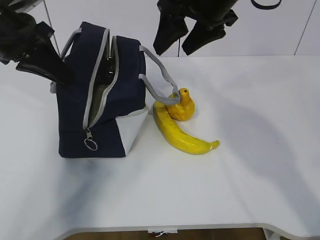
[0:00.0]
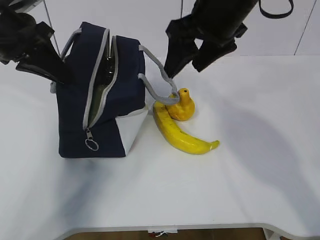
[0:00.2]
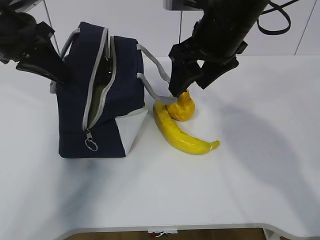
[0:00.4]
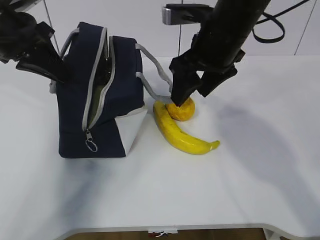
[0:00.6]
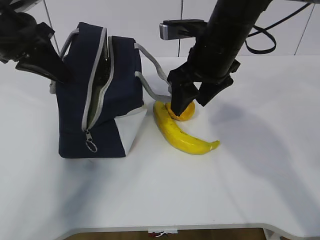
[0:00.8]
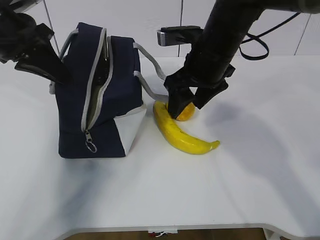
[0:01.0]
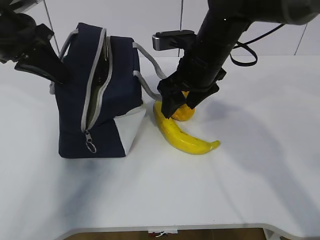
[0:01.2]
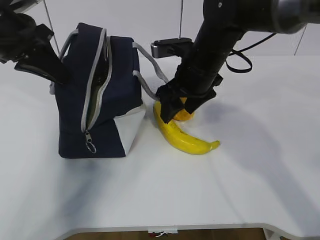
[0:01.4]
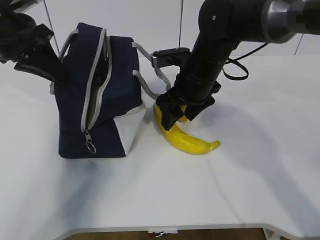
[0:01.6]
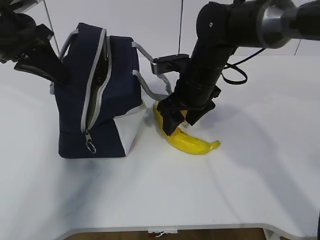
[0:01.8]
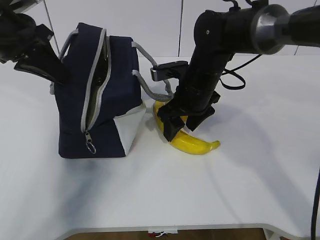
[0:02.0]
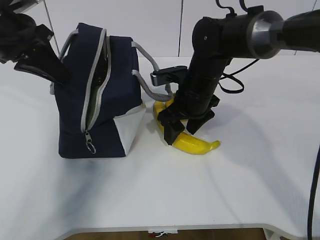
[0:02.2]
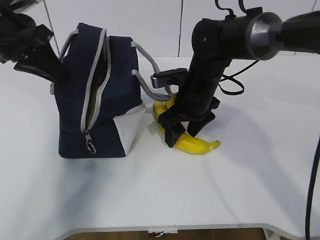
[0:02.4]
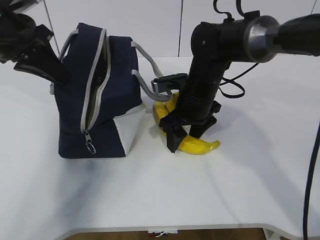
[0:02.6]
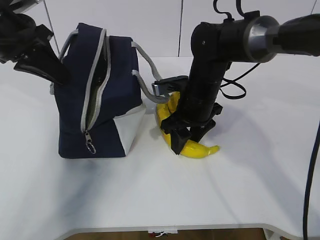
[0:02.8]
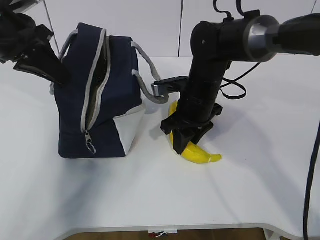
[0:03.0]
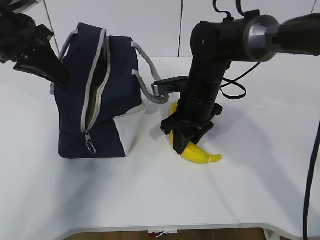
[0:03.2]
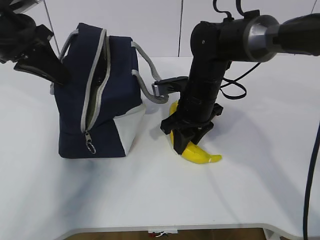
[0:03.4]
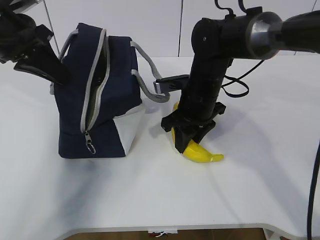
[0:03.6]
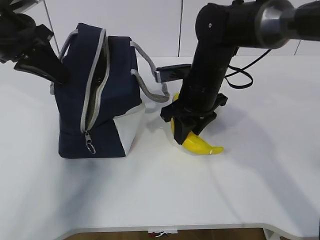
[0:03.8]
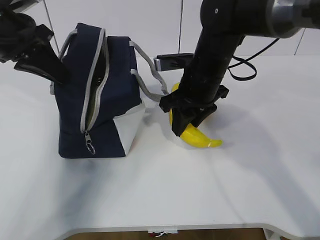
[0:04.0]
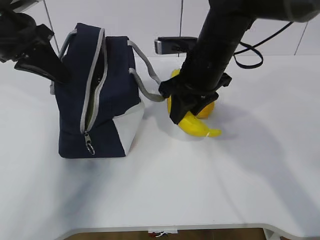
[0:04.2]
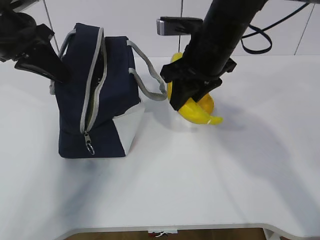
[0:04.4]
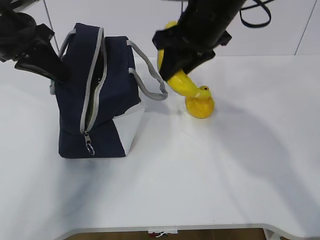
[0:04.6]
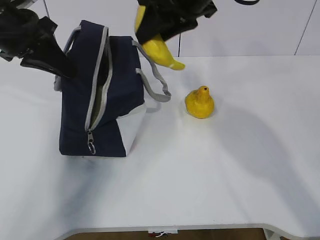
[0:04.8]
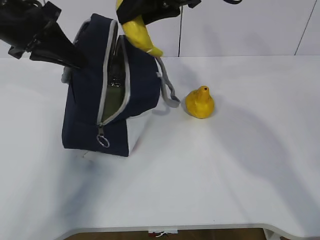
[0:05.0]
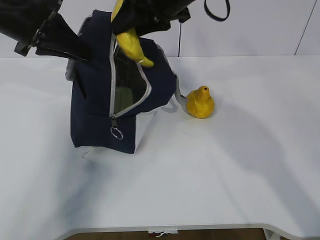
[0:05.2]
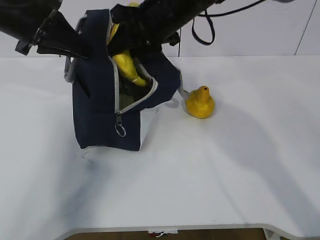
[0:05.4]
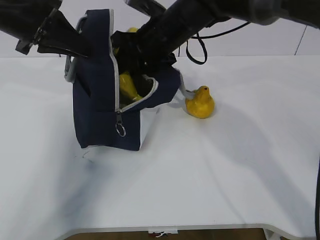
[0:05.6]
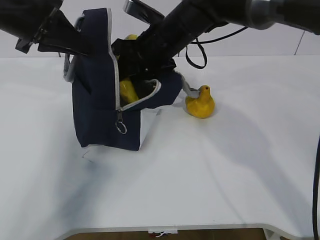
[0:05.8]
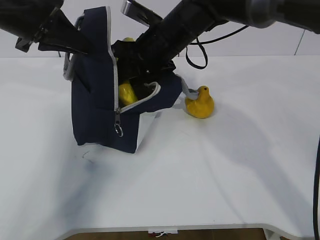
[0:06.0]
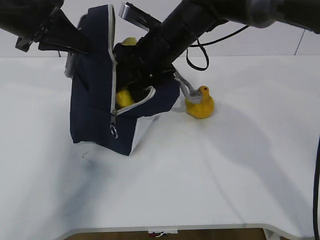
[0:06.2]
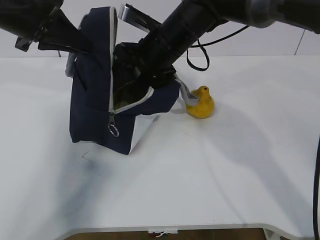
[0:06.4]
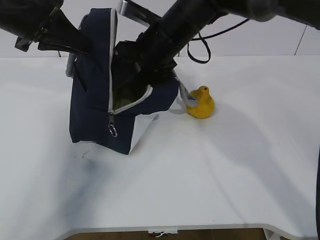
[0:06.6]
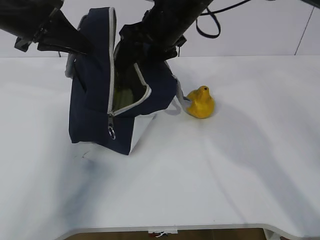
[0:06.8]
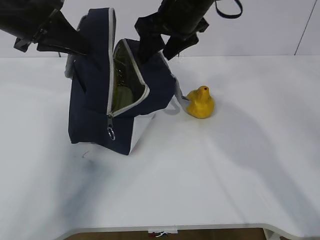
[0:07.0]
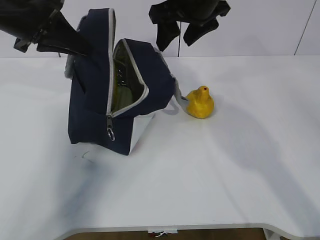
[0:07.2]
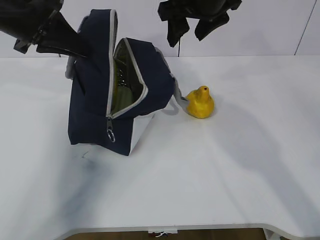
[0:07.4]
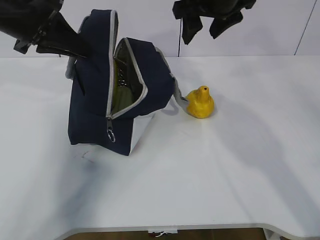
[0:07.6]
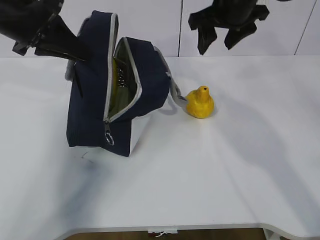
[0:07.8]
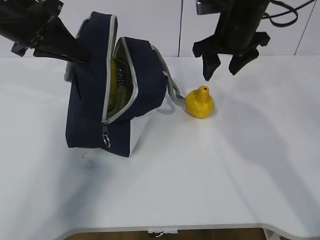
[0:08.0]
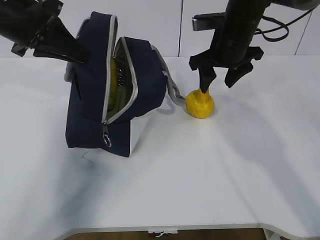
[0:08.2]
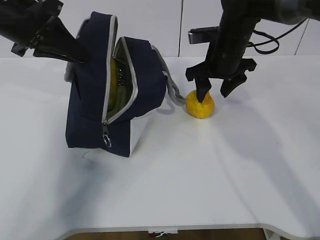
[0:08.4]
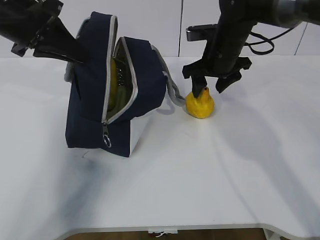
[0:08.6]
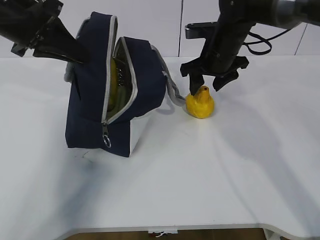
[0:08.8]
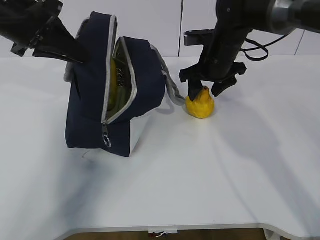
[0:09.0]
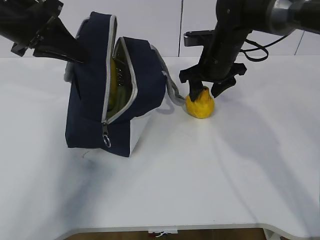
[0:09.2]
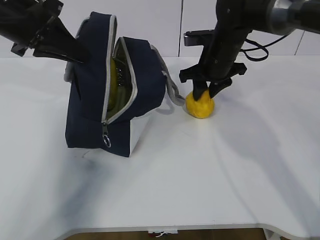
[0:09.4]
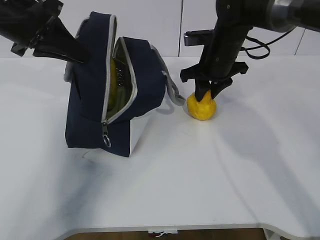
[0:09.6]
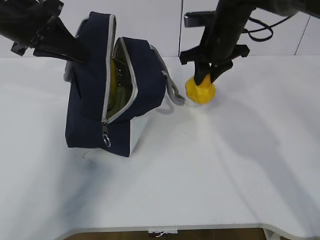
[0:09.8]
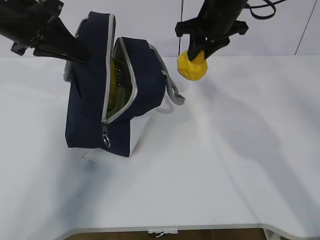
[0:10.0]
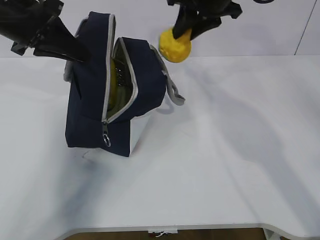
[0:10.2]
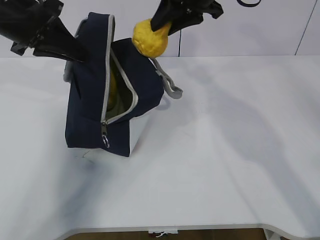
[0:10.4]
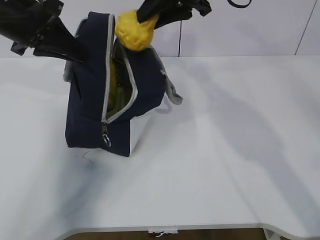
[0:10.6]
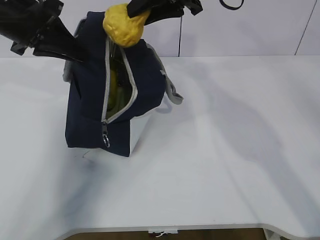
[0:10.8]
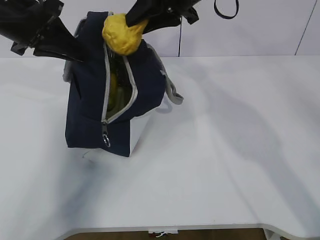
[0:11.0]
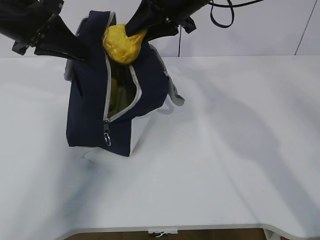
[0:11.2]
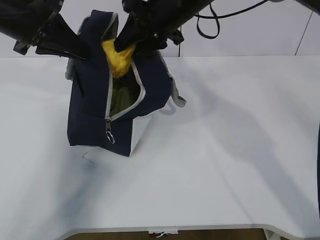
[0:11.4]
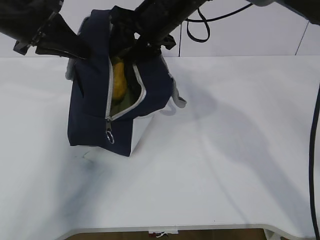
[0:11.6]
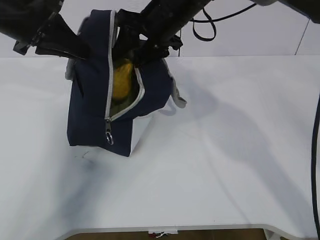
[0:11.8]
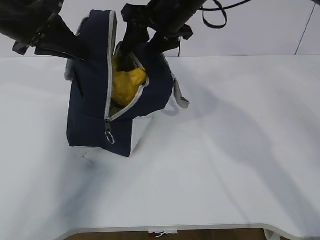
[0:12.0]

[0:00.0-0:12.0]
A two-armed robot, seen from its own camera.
Step, 0:00.0 to 0:01.2: Place it into the bag with your right hand.
Step, 0:01.4 to 0:03.8: Grab the pear with your right hand.
Step, 0:06.2 to 0:07.0: Grab the lunch bag with your right hand.
Step, 0:07.2 to 0:08.6: Move the lunch bag to the right.
0:00.0 to 0:01.6: The right gripper moves downward, roughly 15 cm.
0:01.6 to 0:03.0: The right gripper closes up.
0:03.0 to 0:04.4: The right gripper travels upward by about 10 cm.
0:04.4 to 0:06.0: The right gripper travels to the left and forward by roughly 10 cm, and goes upward and returns, about 10 cm each way.
0:06.0 to 0:07.6: The right gripper travels upward and to the right by roughly 10 cm, and opens.
0:07.6 to 0:09.0: The right gripper goes some 15 cm downward.
0:09.0 to 0:10.4: The right gripper is displaced upward by some 15 cm, and closes its fingers.
0:10.4 to 0:12.0: The right gripper travels to the left by about 5 cm, and opens up.

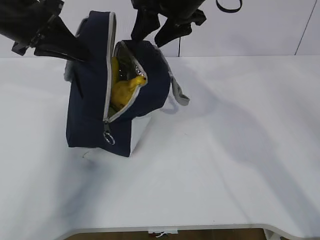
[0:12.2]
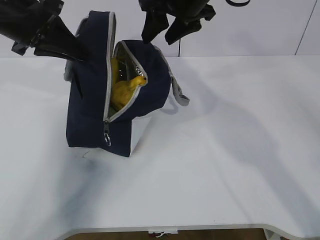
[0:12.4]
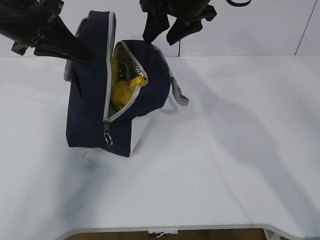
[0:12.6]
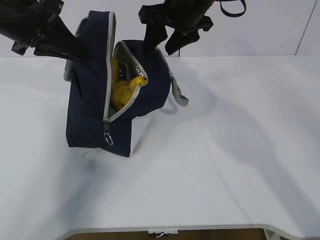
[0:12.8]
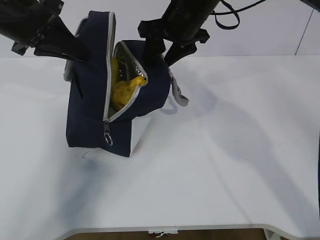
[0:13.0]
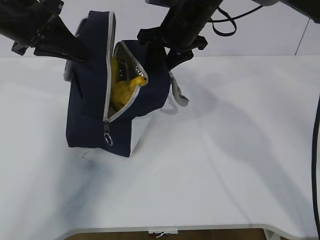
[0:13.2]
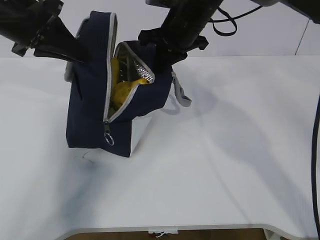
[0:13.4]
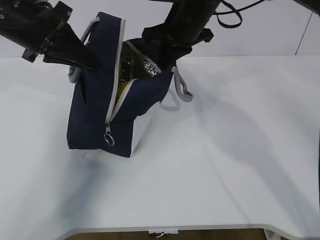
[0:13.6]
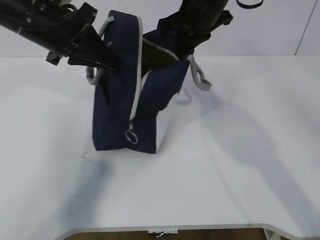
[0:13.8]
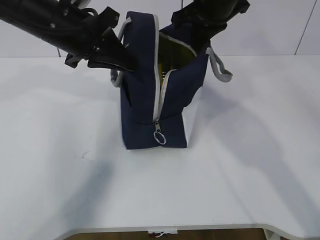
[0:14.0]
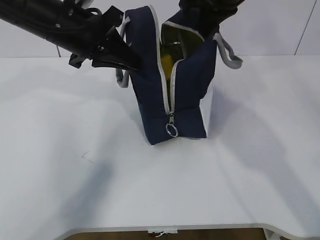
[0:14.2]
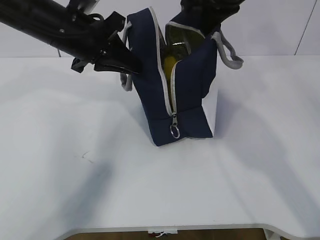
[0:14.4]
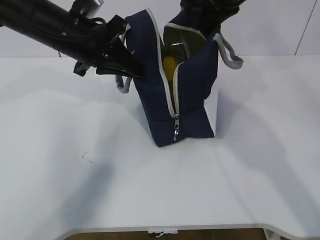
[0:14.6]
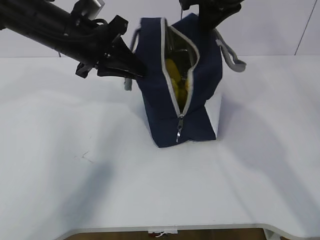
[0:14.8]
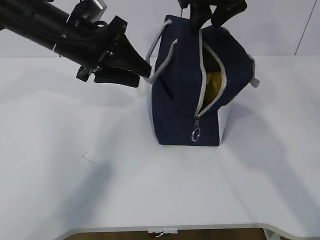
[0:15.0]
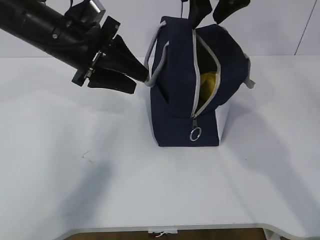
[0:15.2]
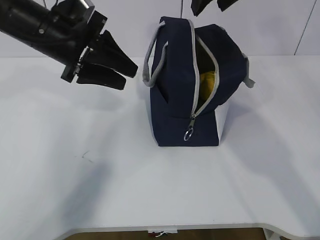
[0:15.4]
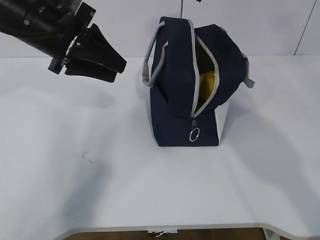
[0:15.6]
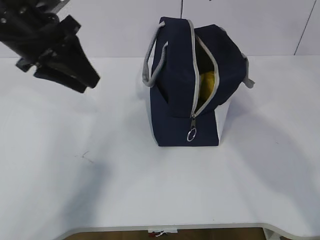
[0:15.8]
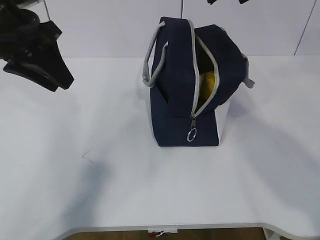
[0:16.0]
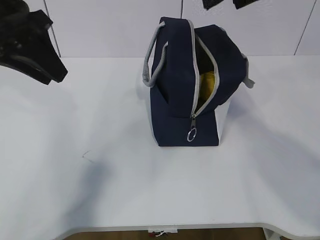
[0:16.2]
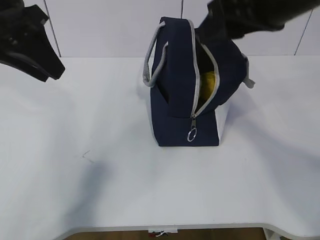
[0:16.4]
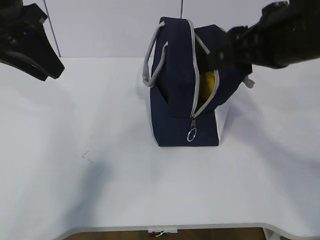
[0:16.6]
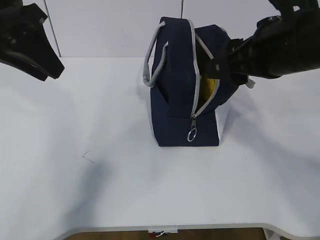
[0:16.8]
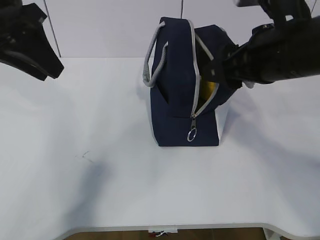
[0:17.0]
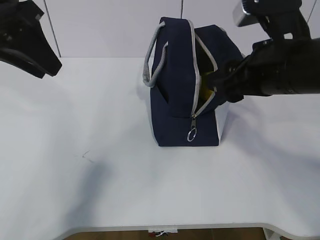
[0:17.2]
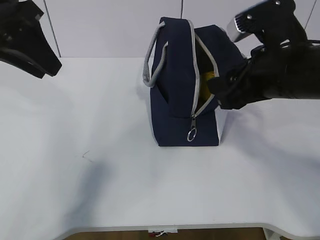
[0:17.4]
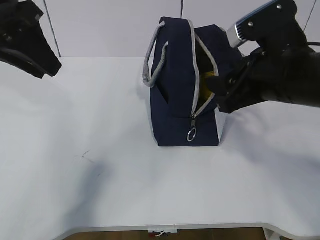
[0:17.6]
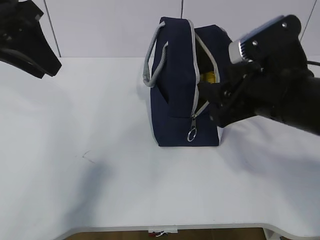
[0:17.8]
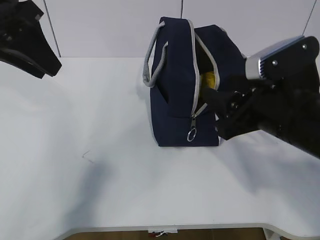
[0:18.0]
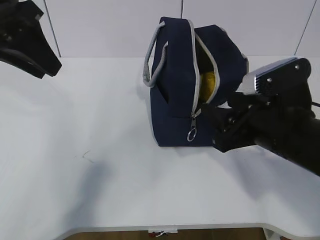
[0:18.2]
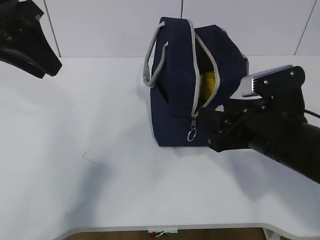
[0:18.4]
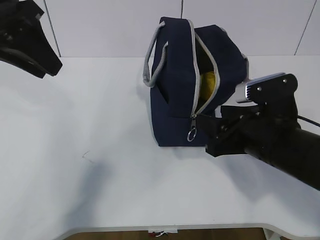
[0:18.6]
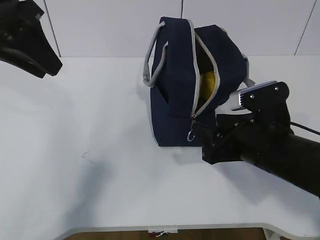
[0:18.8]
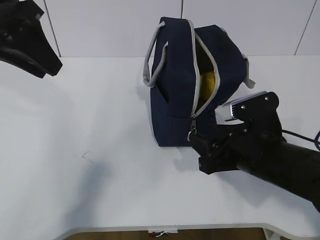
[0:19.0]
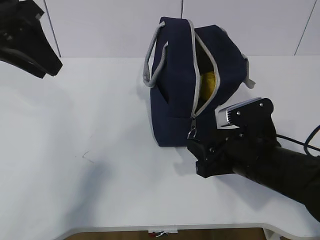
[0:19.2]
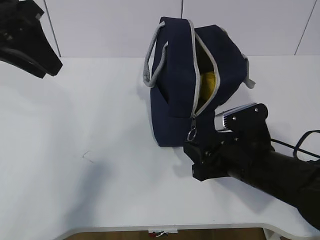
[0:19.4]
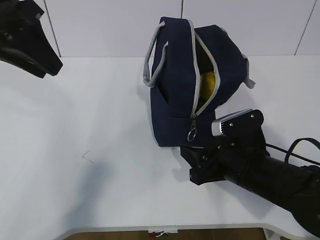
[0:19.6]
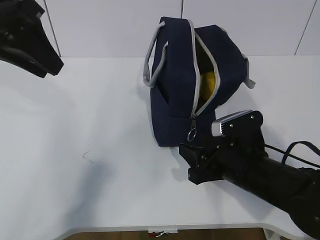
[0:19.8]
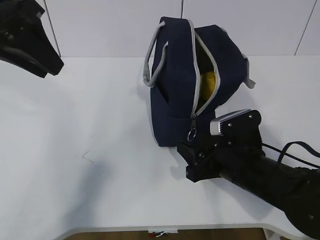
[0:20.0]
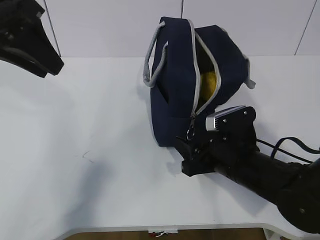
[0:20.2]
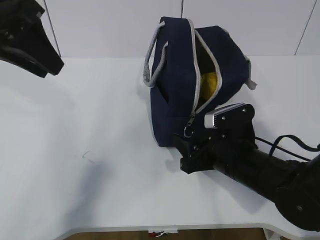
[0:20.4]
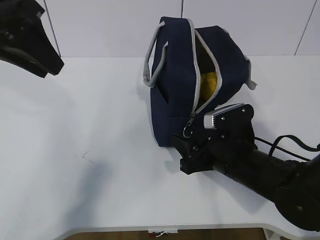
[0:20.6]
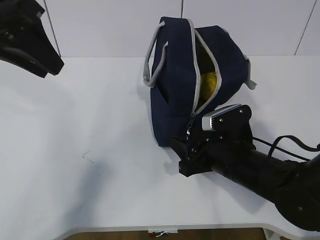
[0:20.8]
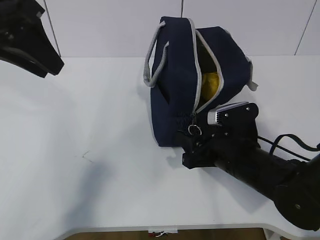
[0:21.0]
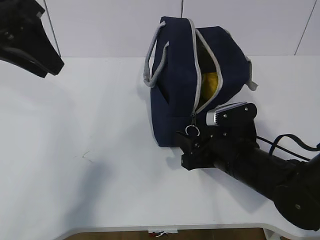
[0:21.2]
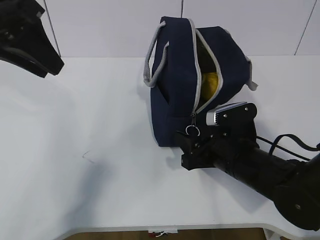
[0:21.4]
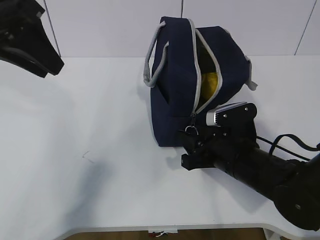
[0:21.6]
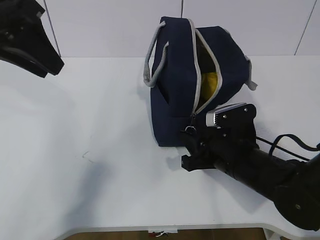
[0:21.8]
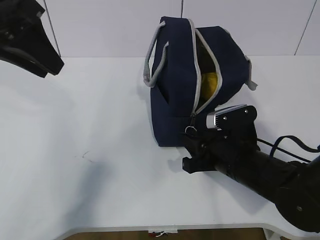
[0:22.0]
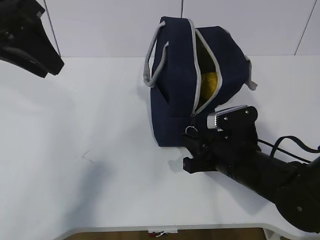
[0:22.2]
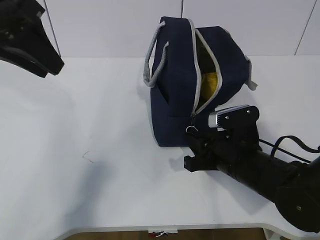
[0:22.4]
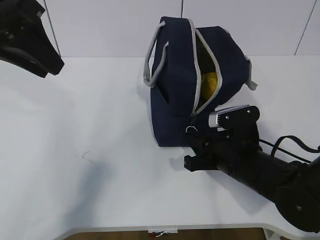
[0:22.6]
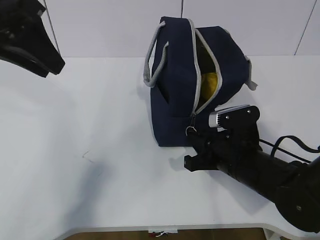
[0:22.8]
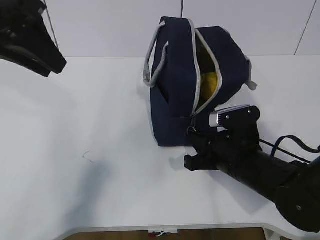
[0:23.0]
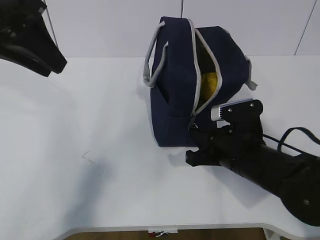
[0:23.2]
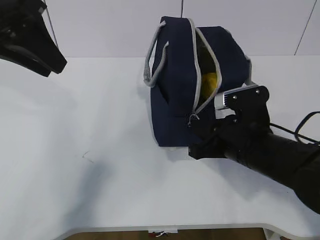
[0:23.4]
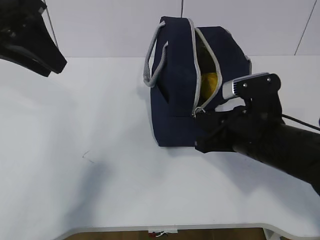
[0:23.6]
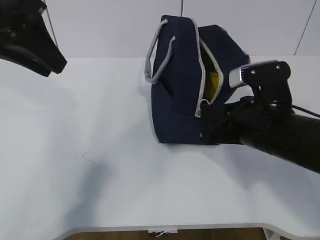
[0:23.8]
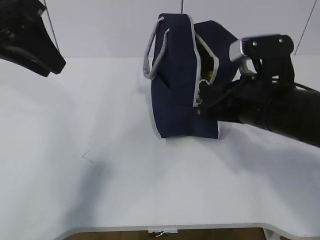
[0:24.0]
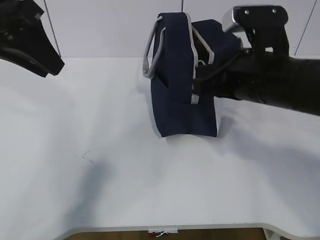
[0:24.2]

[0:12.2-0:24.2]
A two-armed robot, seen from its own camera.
Step, 0:12.2 to 0:20.8: Grab the lunch bag with your left hand.
0:12.2 to 0:13.8: The right gripper closes its fingers.
0:13.8 to 0:15.2: The right gripper goes some 5 cm upward, and opens its fingers; the left gripper opens its fingers.
0:15.2 to 0:16.6: The left gripper travels upward, to the left and backward by roughly 10 cm, while the right gripper heads backward, covering about 15 cm.
0:16.6 to 0:18.2: The right gripper is displaced downward by roughly 10 cm.
0:18.2 to 0:19.8: The right gripper is displaced downward by roughly 10 cm.
0:19.8 to 0:21.2: The grippers stay close to where they were, moving slightly.
0:21.2 to 0:22.6: The right gripper closes its fingers.
0:22.6 to 0:24.2: The right gripper heads upward, covering roughly 15 cm.
